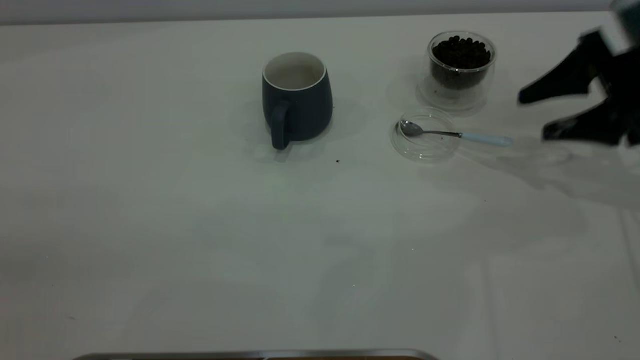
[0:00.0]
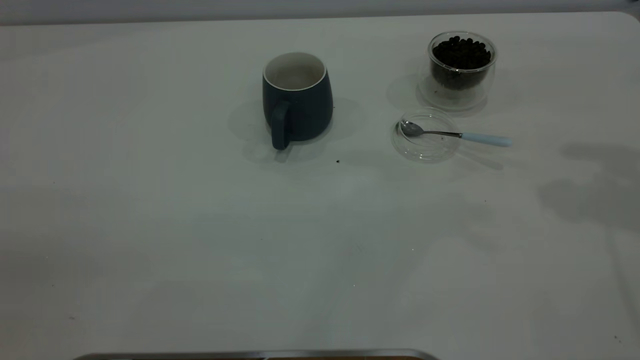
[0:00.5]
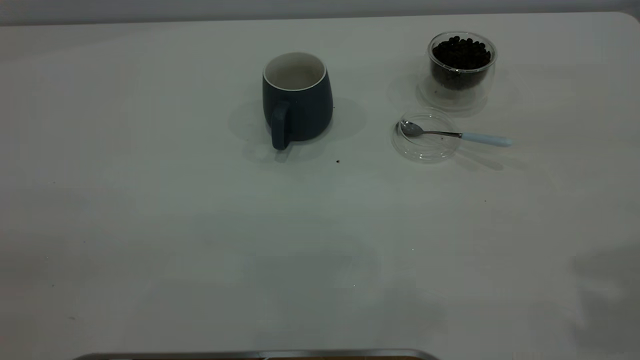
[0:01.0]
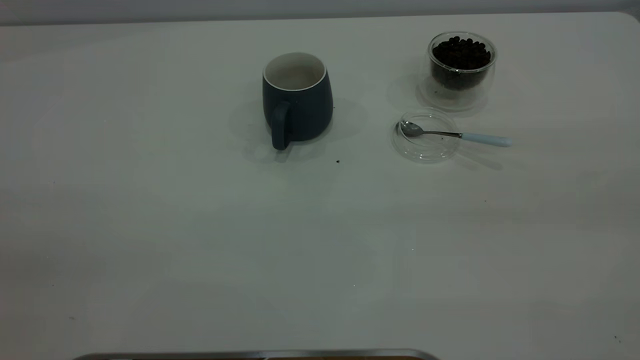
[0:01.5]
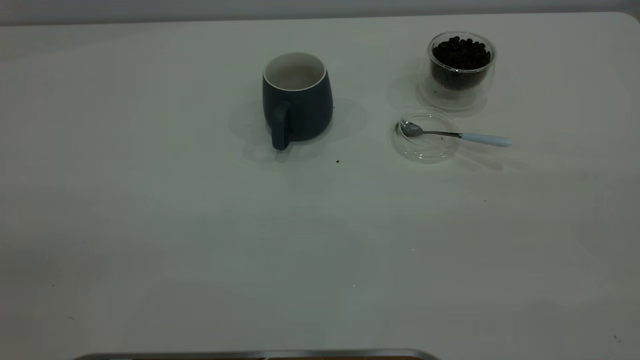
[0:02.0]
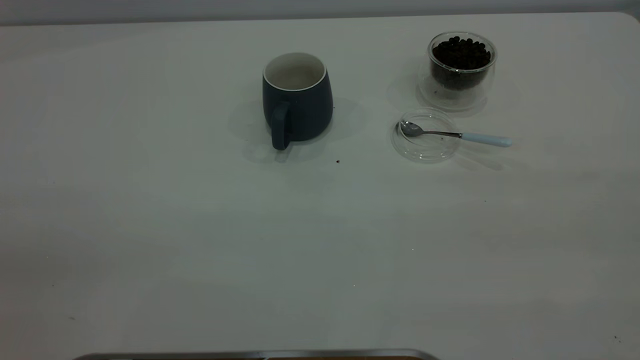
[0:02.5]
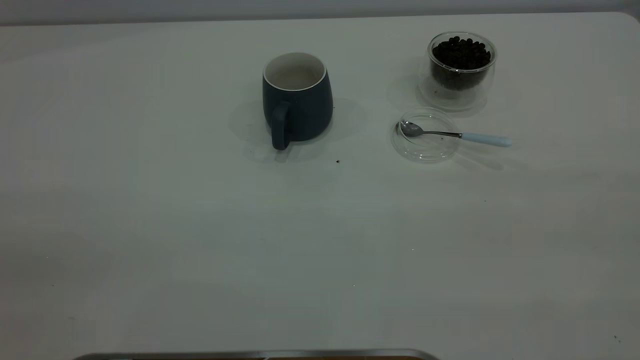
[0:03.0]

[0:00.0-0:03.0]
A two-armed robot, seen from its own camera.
Task of the whole recording: the left gripper place the grey cup in the center of the table, the right gripper take the blue spoon from the cup lid and scoop out the coffee beans from the coffee cup and put them into the grey cup, the right gripper put the spoon back into the cup lid.
0:00.0 to 0:01.5: The right gripper heads backward and upward, covering some 40 cm.
